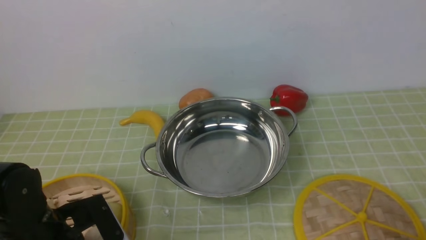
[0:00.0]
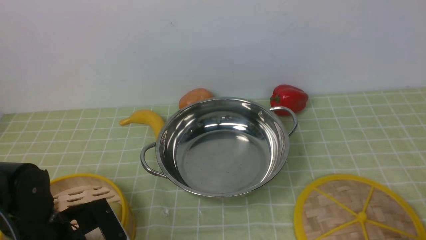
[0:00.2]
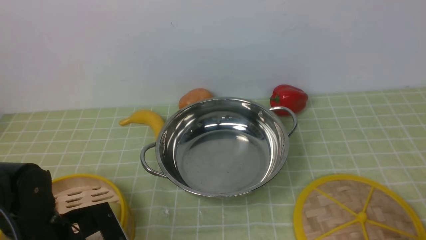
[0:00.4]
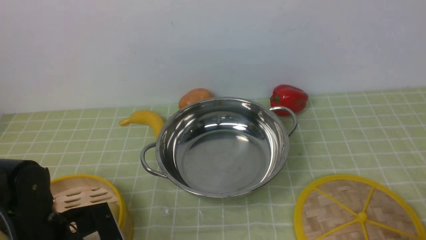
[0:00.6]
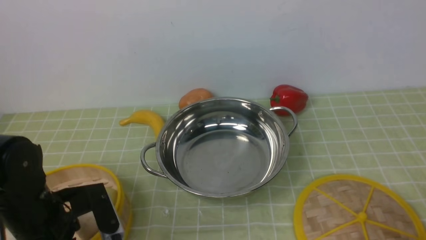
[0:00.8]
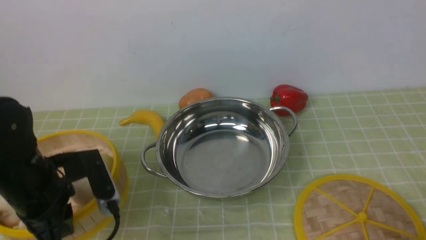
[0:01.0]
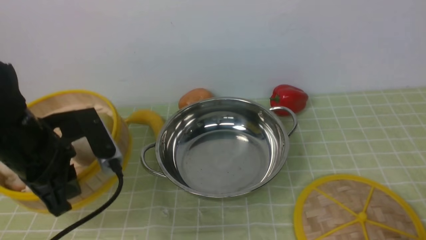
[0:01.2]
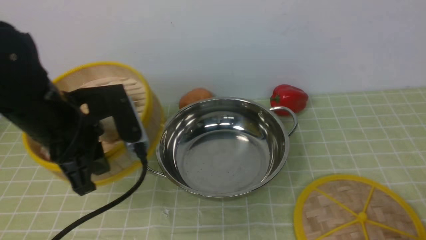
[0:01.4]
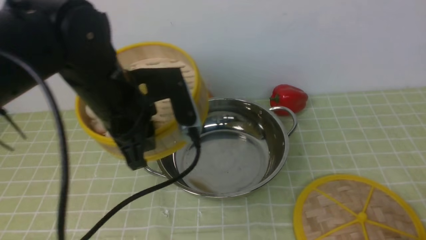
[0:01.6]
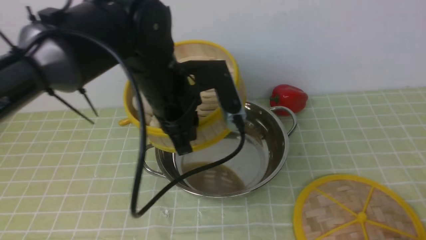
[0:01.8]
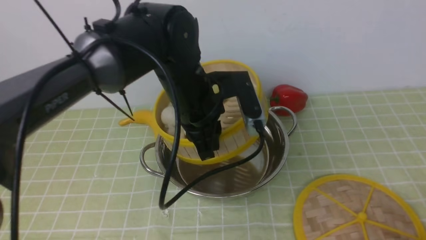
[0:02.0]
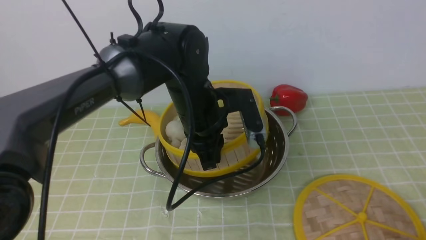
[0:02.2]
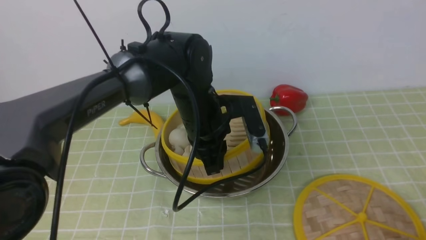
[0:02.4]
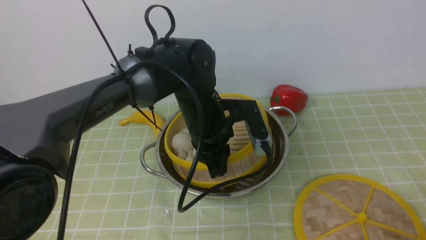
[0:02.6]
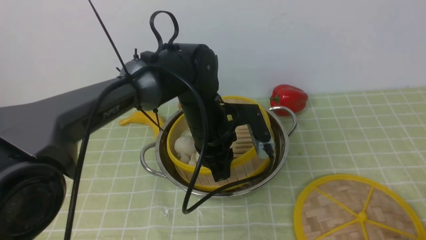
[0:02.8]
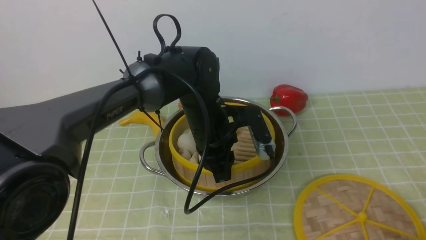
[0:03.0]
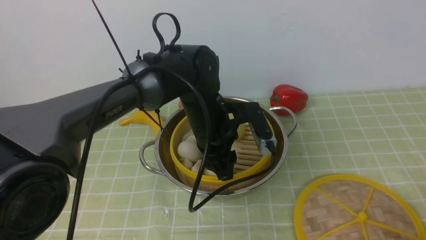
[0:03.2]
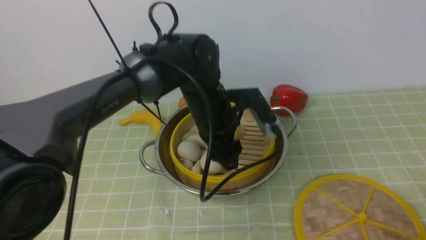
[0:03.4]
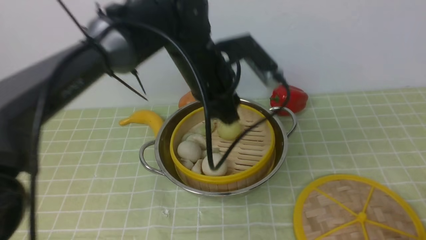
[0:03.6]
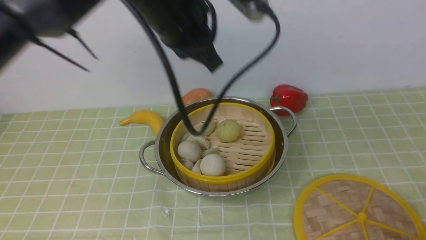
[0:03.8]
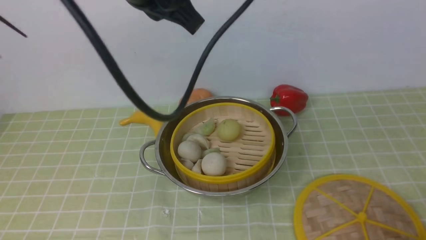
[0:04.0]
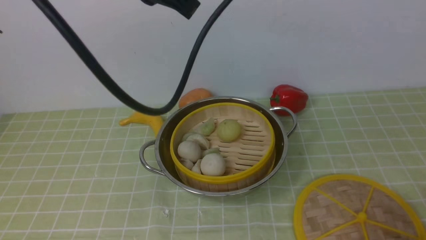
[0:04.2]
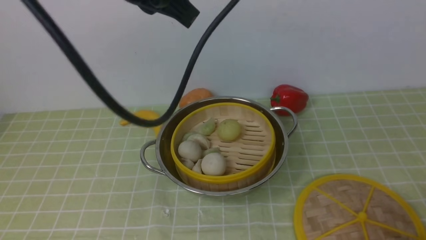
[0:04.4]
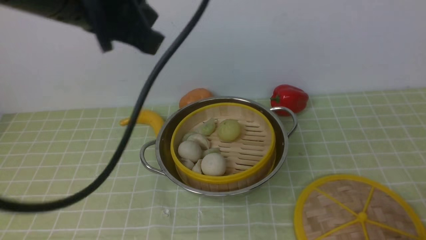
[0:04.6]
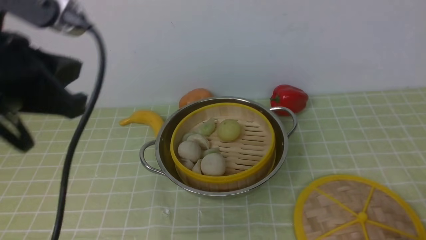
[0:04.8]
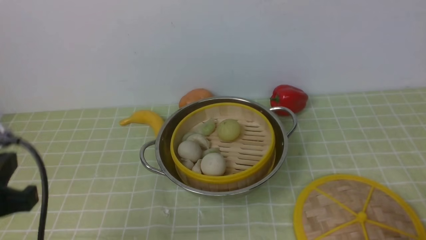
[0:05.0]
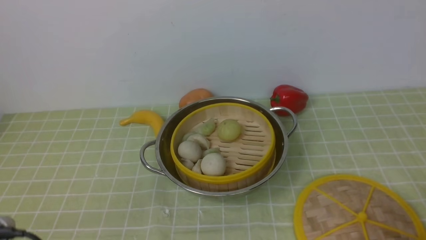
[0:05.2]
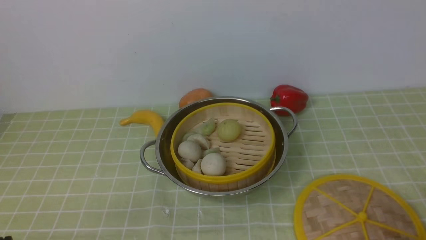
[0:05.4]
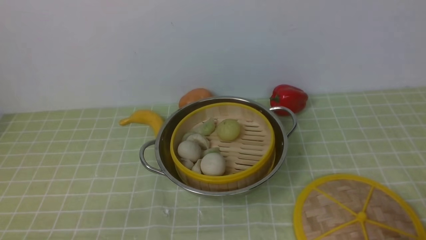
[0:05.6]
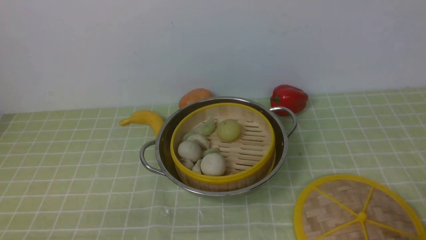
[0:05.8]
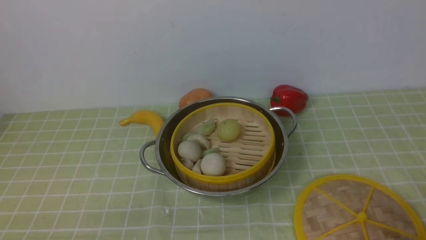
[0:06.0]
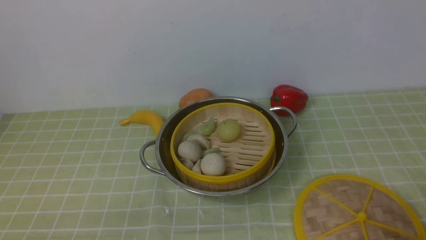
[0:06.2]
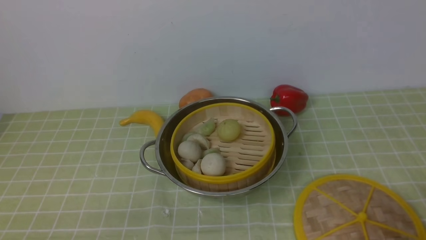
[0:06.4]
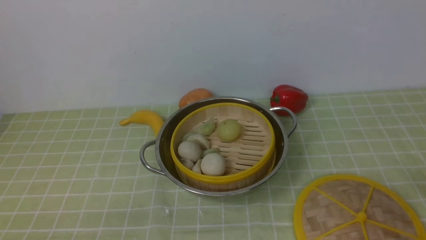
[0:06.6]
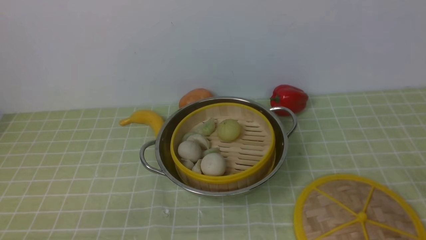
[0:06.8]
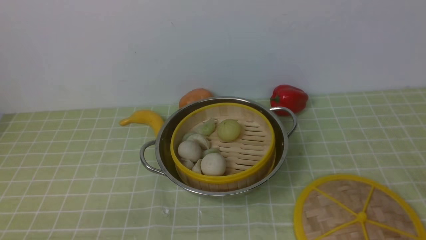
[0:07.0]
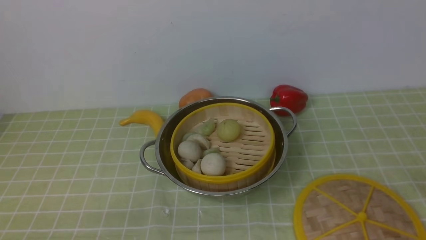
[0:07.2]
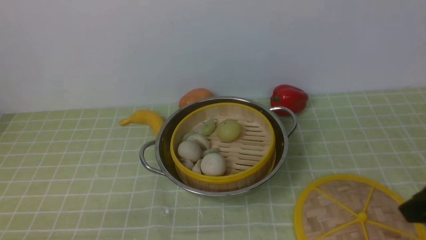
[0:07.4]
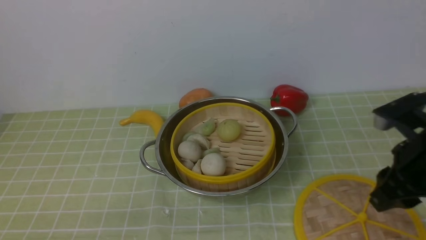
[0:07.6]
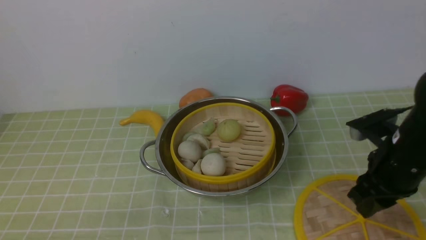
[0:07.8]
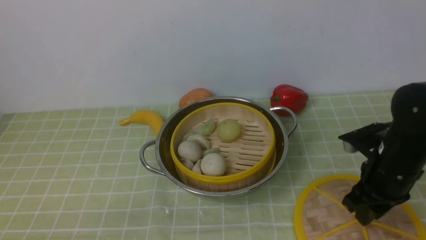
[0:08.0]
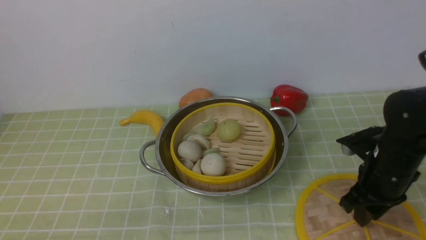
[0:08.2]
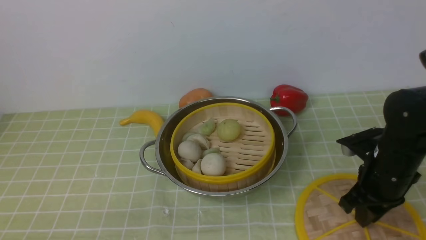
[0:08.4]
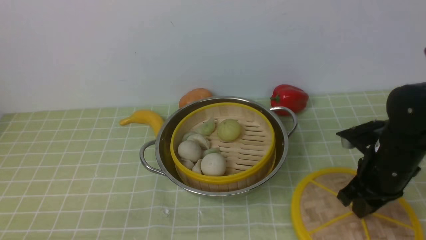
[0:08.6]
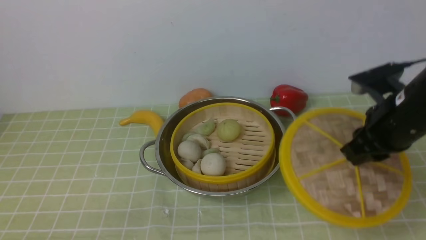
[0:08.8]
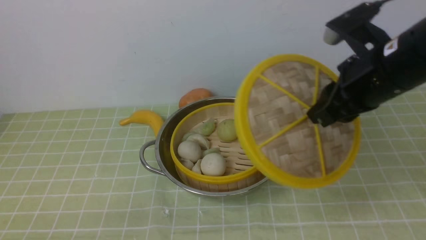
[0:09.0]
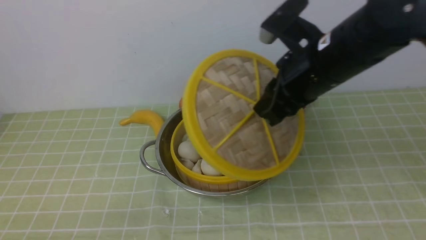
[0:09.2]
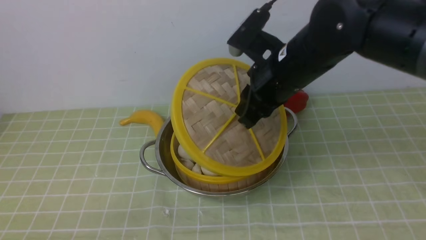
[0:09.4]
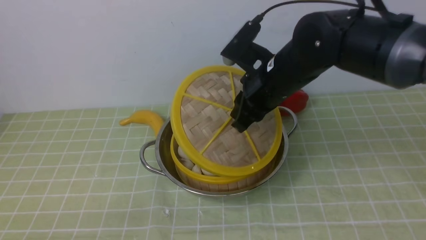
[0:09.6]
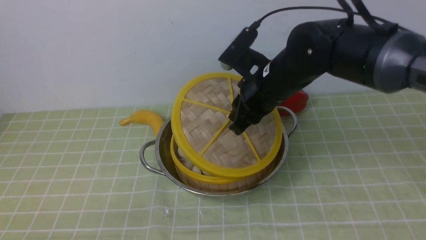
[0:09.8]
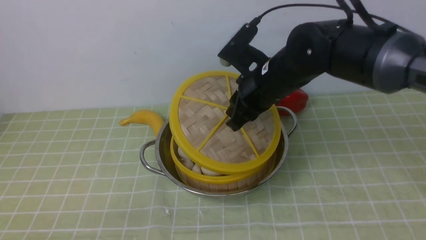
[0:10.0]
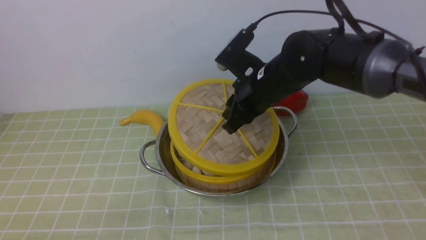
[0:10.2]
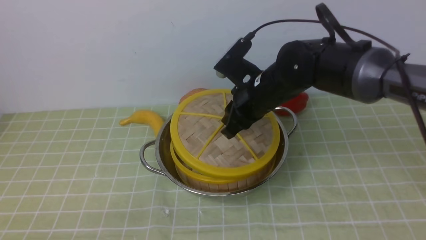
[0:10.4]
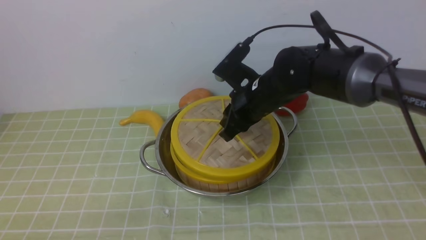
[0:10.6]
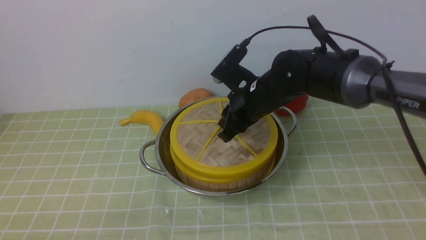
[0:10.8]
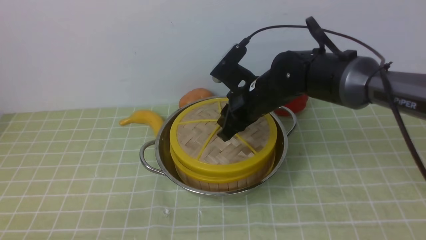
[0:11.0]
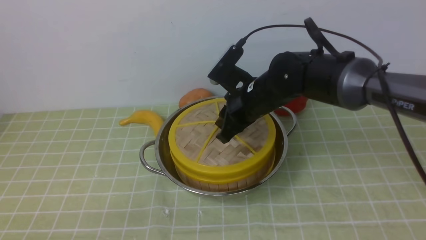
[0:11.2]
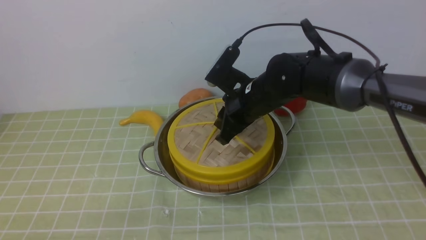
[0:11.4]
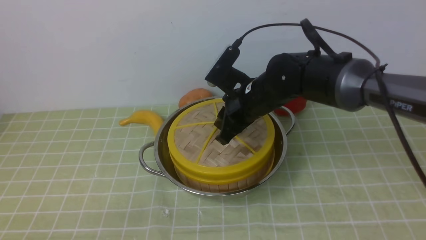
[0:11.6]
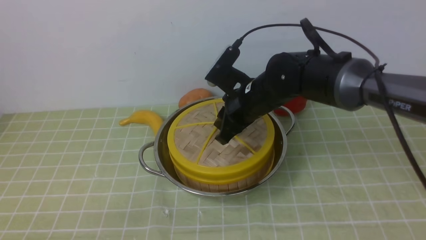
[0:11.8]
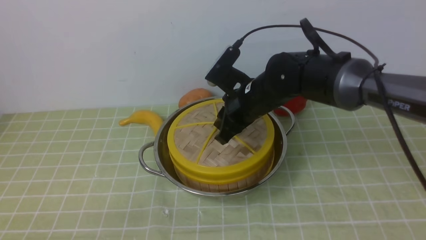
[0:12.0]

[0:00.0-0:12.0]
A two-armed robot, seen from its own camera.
Task of the whole recording: place the steamer in the pot on the green tablecloth, and put the lid on the steamer.
Step, 0:01.4 to 0:03.8: use the left arm to put the steamer into the iron steamer pot in the middle.
Step, 0:04.0 to 0:08.6: use the right arm to lift the lid of the steamer.
0:00.0 to 0:01.6: The left gripper is displaced upward, forward and to the right by about 20 cm, and closes up.
0:01.6 to 0:03.0: The left gripper moves downward, to the right and forward, about 15 cm.
0:03.0 to 0:04.4: The left gripper goes some 25 cm upward, and closes up.
0:04.4 to 0:06.0: The left gripper shifts approximately 40 cm downward, backward and to the left.
0:06.0 to 0:07.6: The right gripper travels forward, upward and to the left by some 20 cm.
0:07.6 to 0:09.0: The right gripper travels to the left, forward and upward by about 10 cm.
0:09.0 to 0:10.4: The right gripper goes roughly 15 cm to the left, downward and forward.
0:10.4 to 0:12.0: The grippers stay close to where they were, moving slightly.

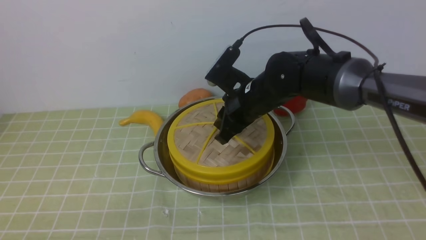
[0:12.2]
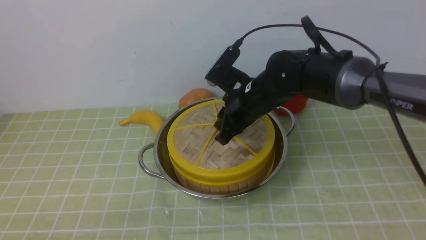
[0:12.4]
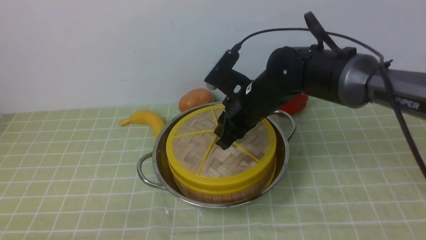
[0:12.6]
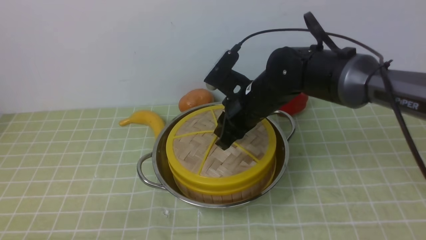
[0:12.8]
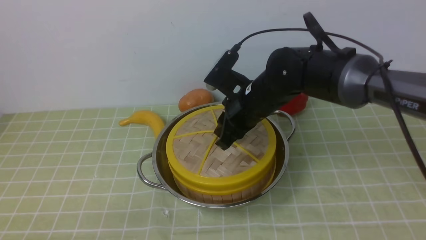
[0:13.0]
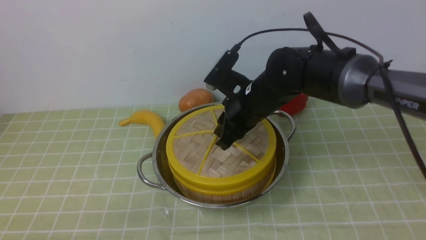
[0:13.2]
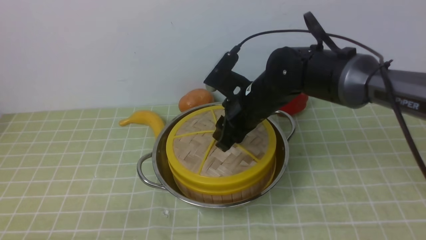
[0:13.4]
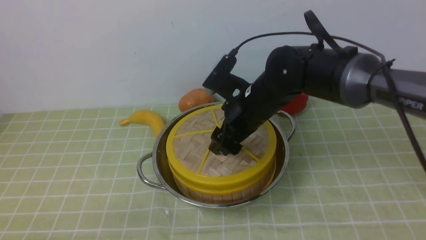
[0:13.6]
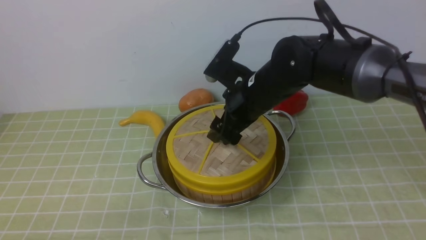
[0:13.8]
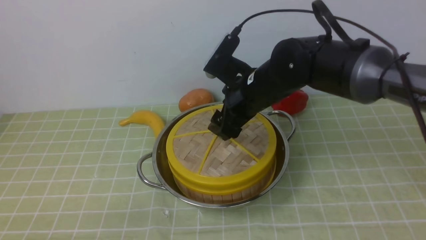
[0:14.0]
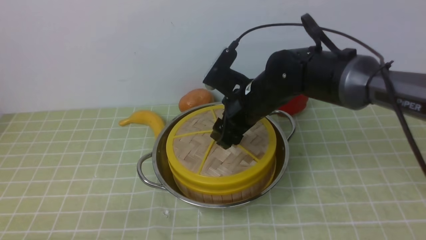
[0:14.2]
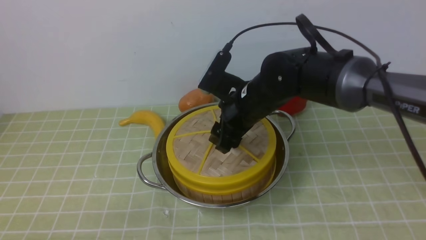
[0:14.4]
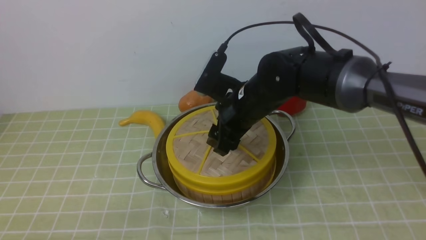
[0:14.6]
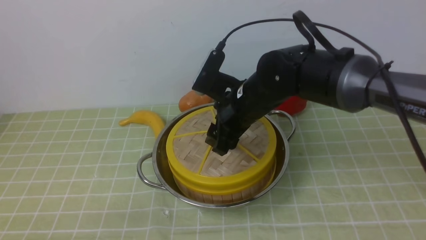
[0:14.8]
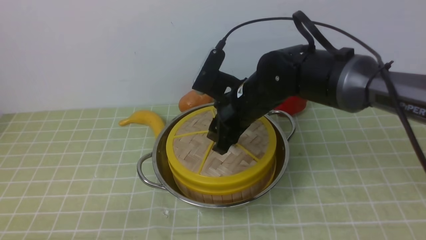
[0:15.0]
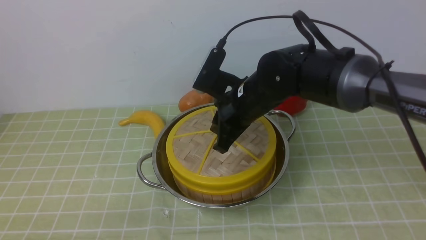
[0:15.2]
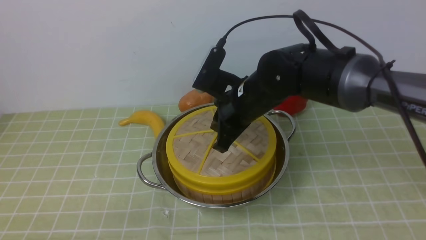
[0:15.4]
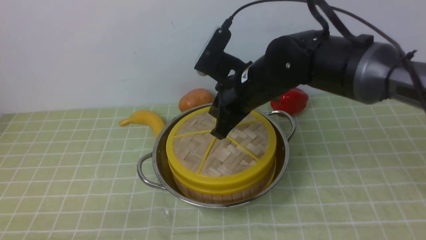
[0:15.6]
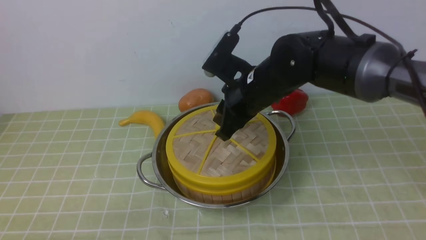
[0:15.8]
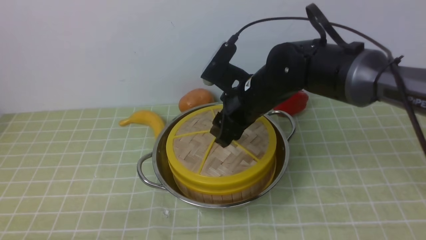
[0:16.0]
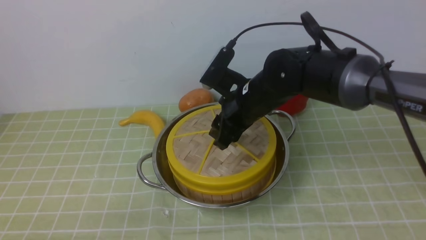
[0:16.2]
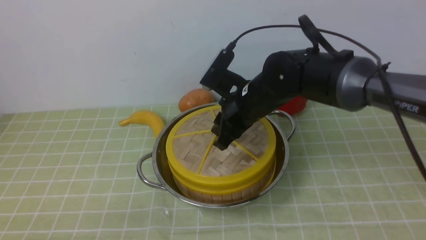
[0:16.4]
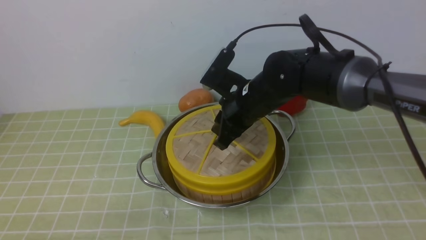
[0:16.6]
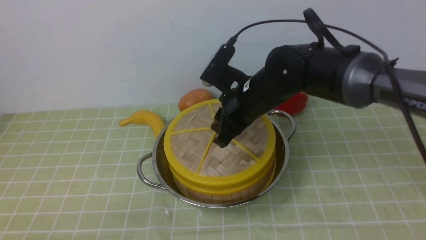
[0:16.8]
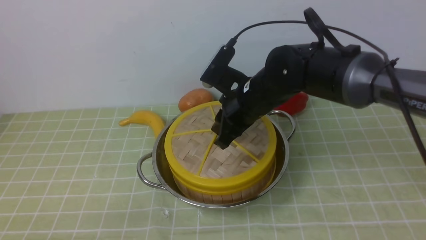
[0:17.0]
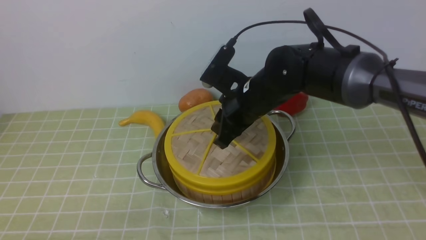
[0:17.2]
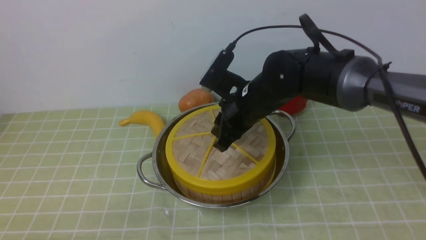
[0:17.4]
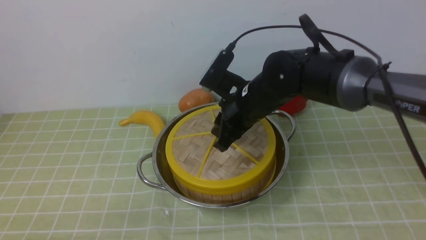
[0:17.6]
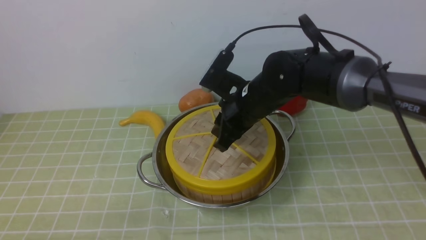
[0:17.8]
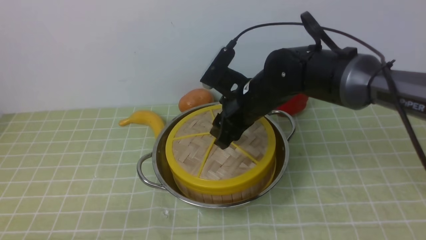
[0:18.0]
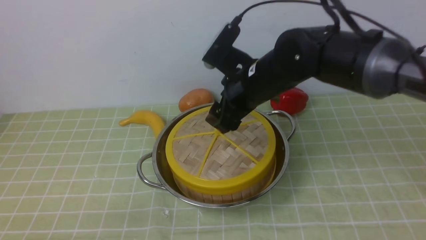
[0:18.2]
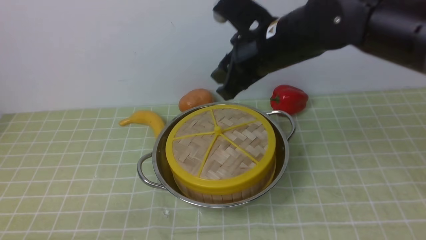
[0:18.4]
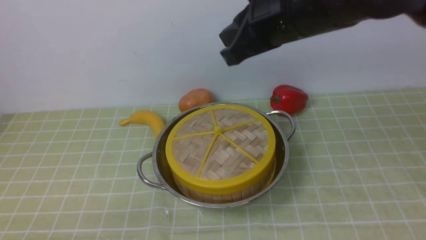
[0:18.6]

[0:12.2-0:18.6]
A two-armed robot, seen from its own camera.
Task of the whole recording: place the steamer in the pot on the green tablecloth, and put the lid on the steamer.
Step, 0:12.2 to 0:18.6: use the right arm to place the steamer lid on the steamer.
0:12.2 to 0:13.8: The right gripper opens up.
0:13.8 to 0:15.4: The right gripper closes its fingers.
0:15.4 to 0:17.0: The right gripper opens, then closes once more.
0:17.0 to 0:18.6: The right gripper goes some 15 cm upward, and opens, then closes once more.
